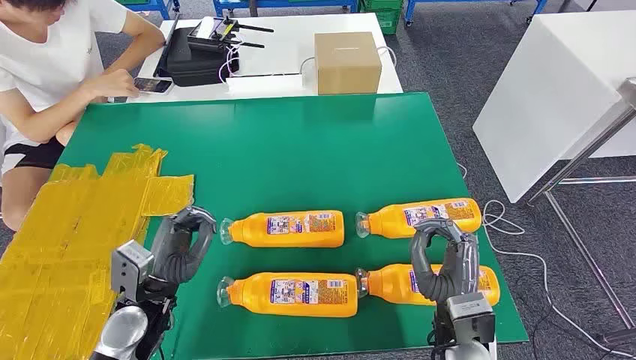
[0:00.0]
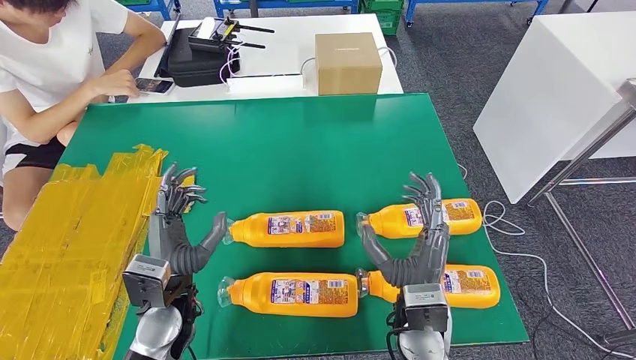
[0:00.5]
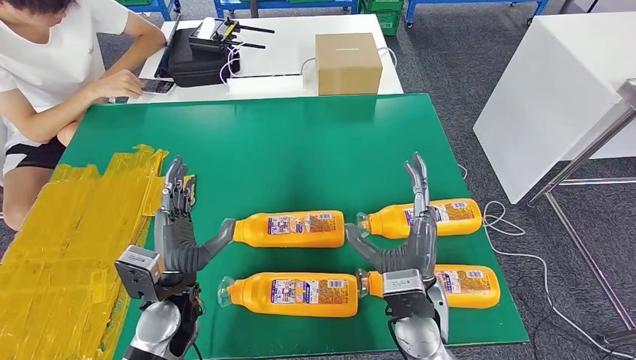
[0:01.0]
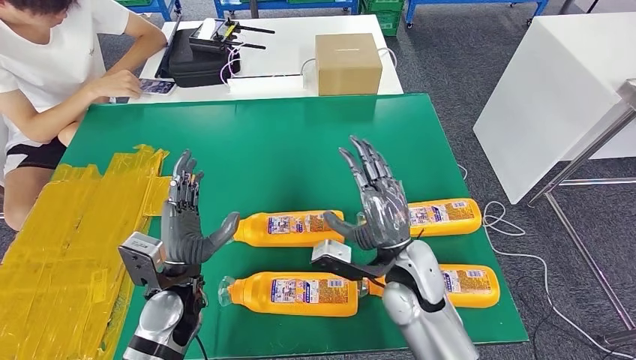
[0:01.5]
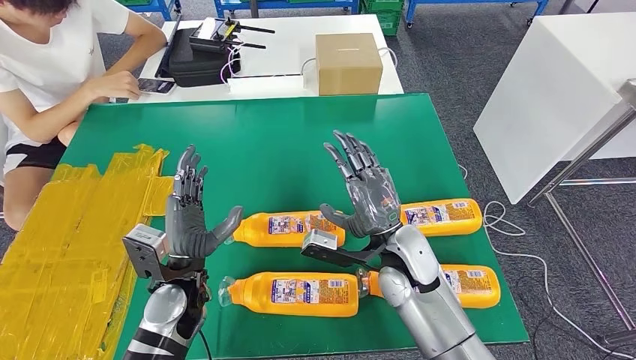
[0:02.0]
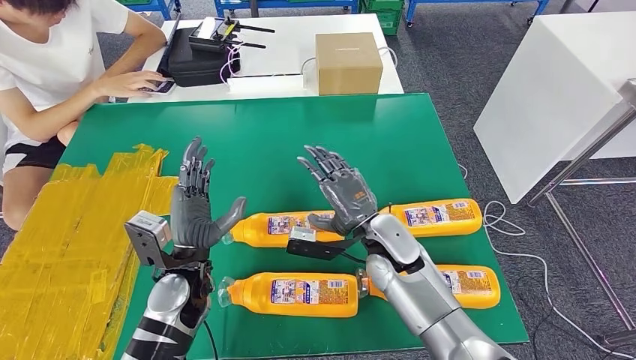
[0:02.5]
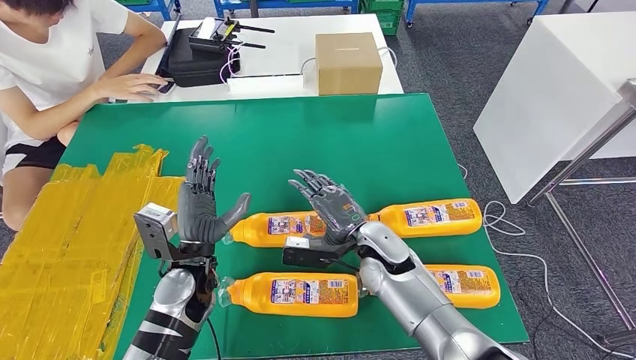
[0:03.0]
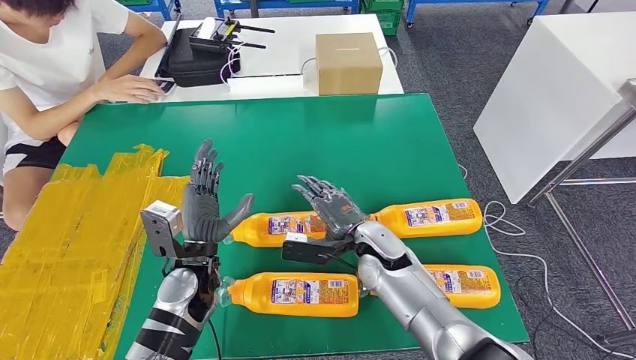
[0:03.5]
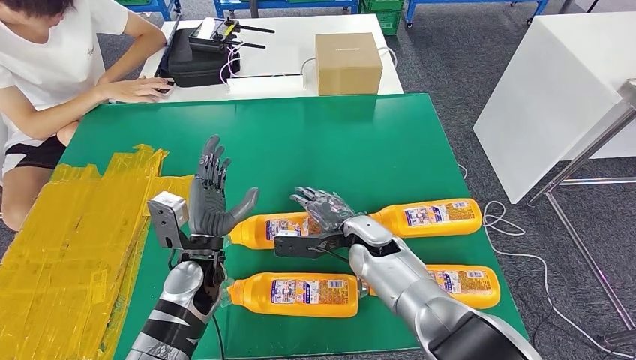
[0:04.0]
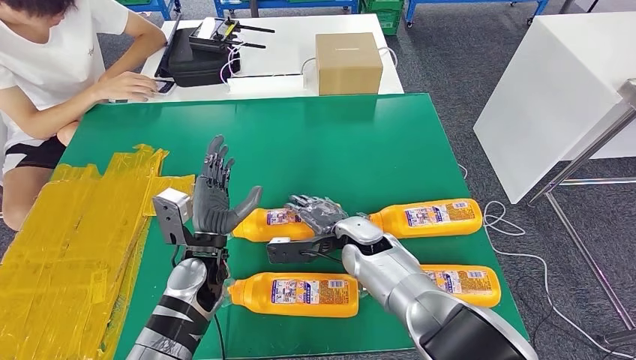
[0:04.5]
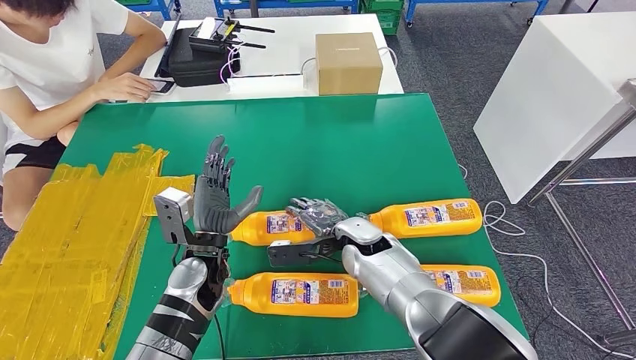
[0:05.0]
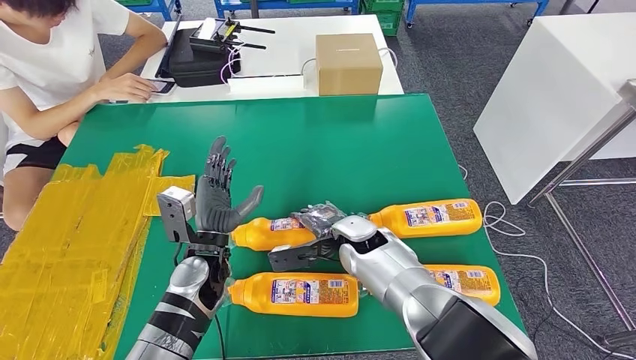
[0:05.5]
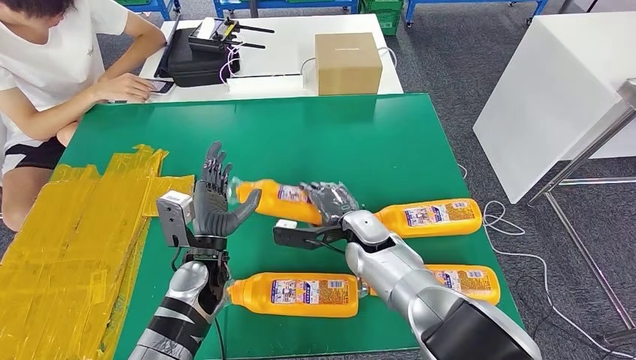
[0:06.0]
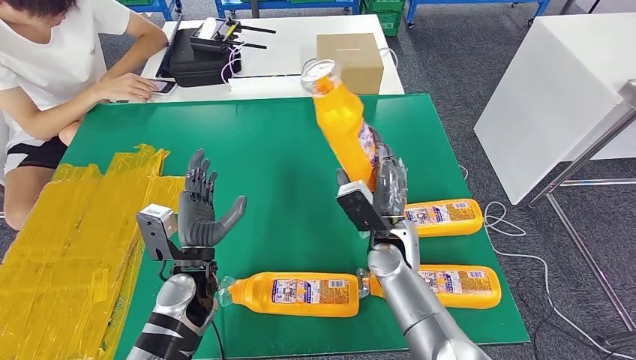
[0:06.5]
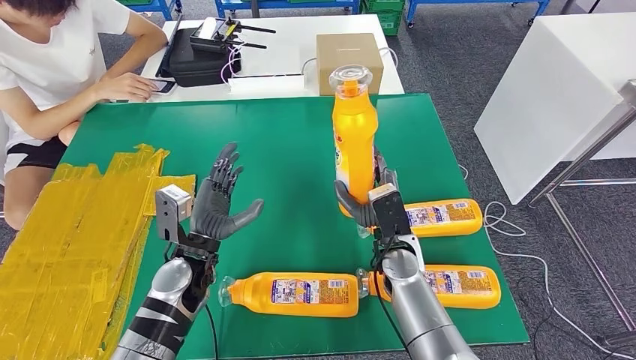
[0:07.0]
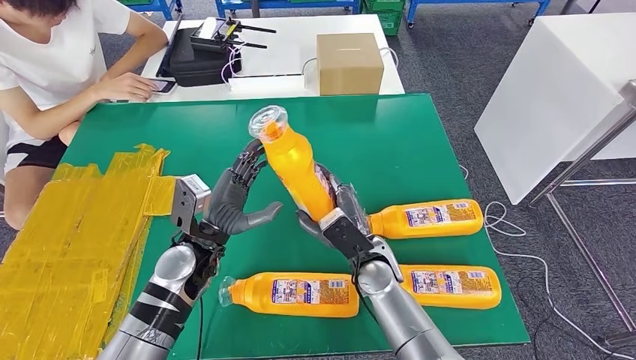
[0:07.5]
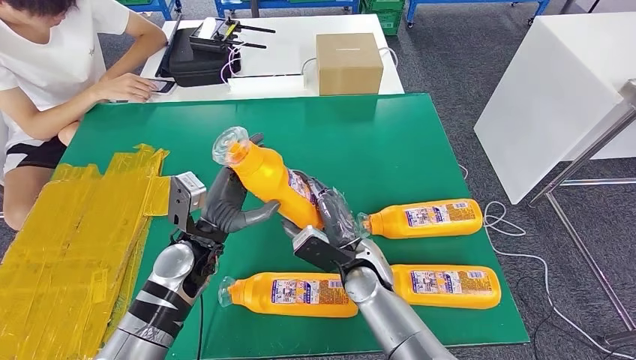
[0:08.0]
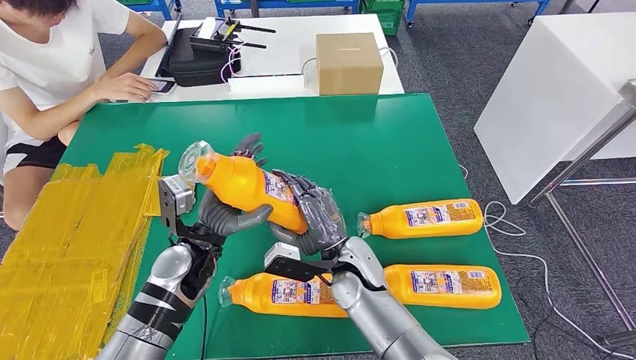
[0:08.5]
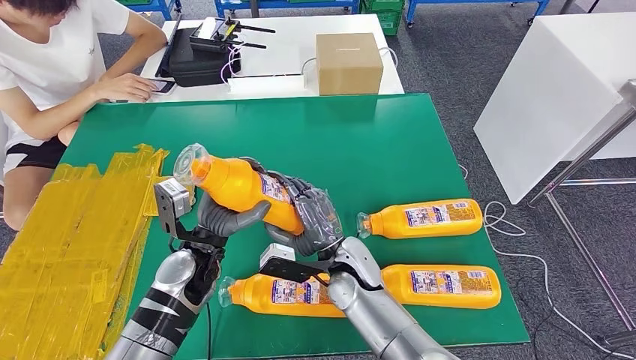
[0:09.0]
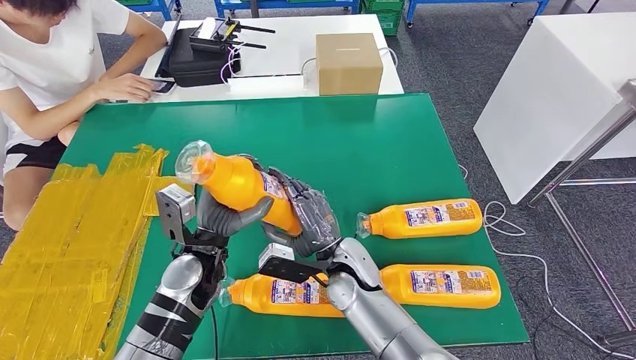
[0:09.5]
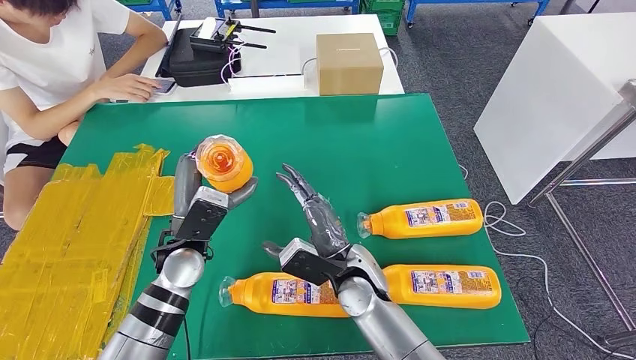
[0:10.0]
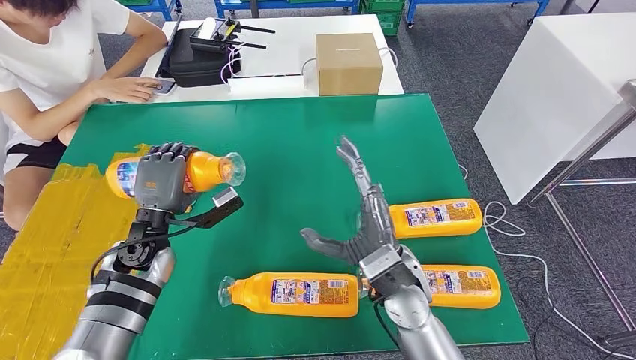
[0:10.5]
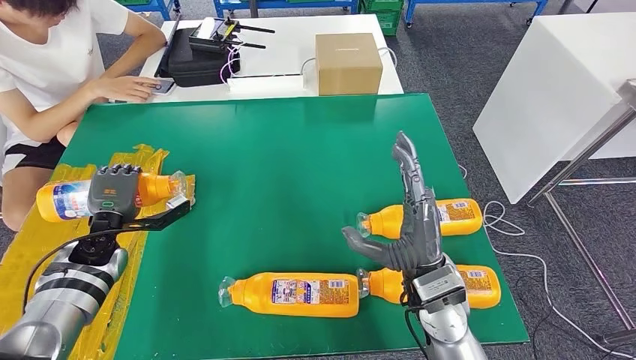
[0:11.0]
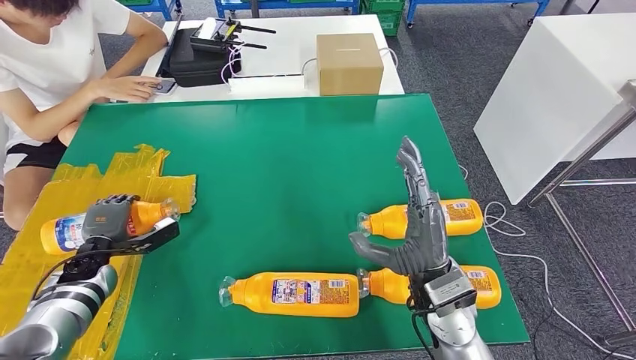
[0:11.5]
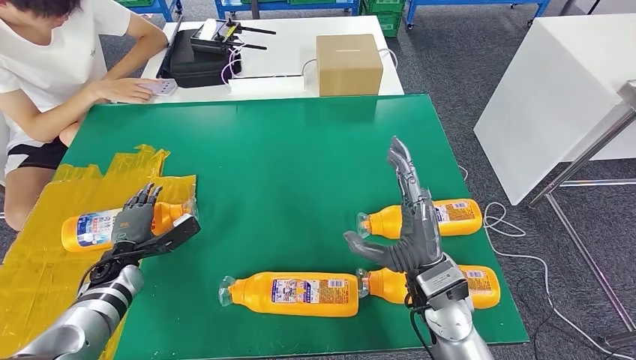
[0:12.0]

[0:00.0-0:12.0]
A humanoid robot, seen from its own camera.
Step, 0:00.0 to 0:07.0: Take the fast-moving consumer goods bottle from the table.
0:02.0 to 0:04.0: The right hand shifts roughly 10 cm downward and forward.
0:06.0 to 0:08.0: The right hand shifts approximately 5 cm backward.
0:10.0 to 0:12.0: The left hand goes roughly 20 cm to the left and downward, while the right hand heads to the right and upward, covering about 10 cm.

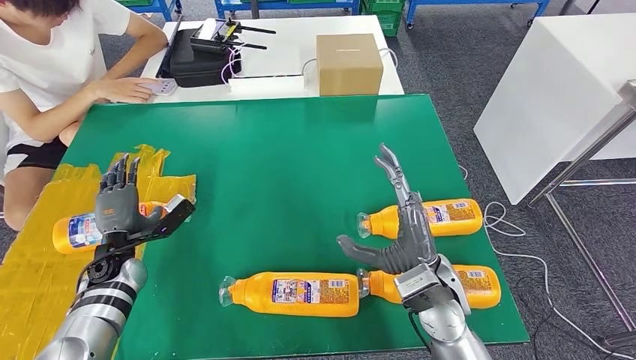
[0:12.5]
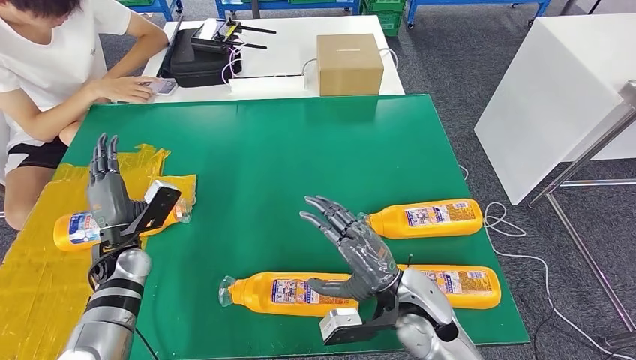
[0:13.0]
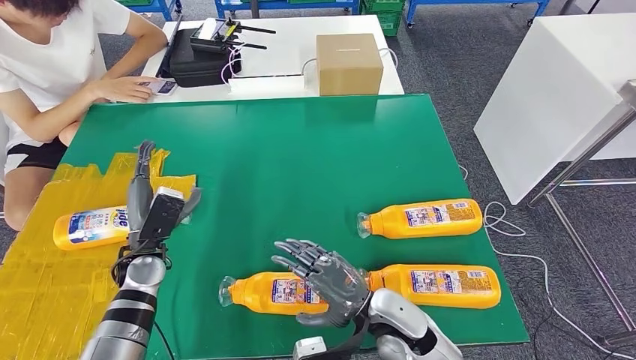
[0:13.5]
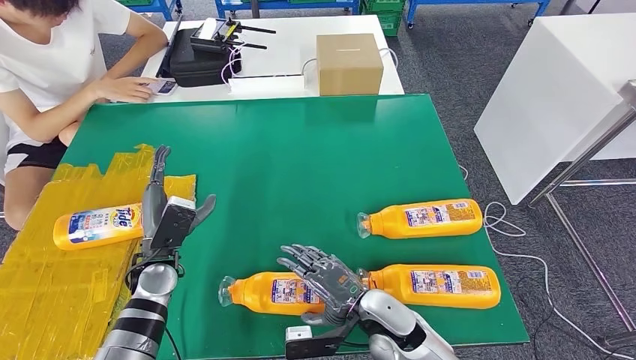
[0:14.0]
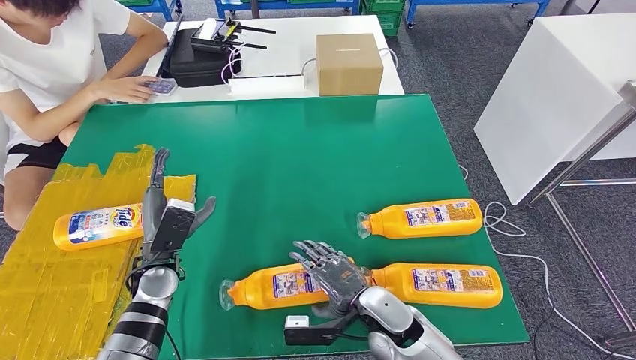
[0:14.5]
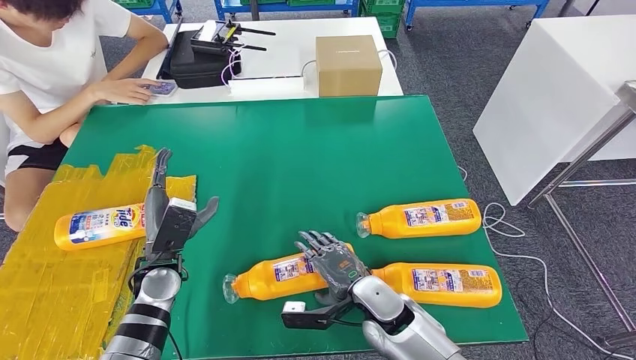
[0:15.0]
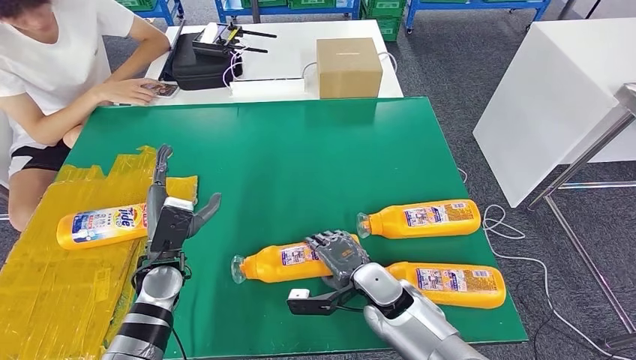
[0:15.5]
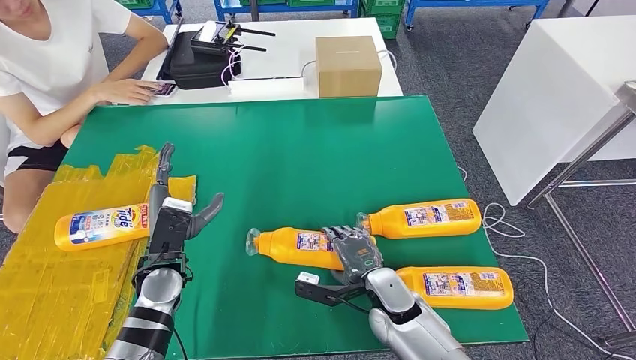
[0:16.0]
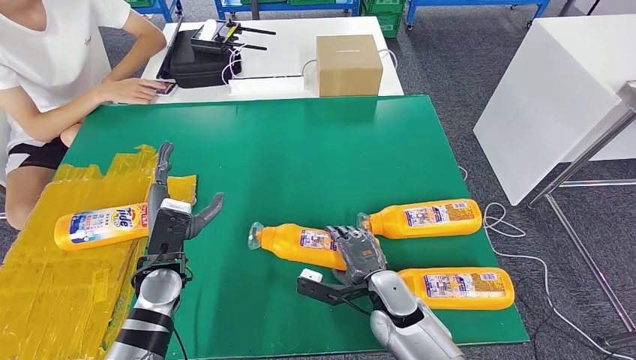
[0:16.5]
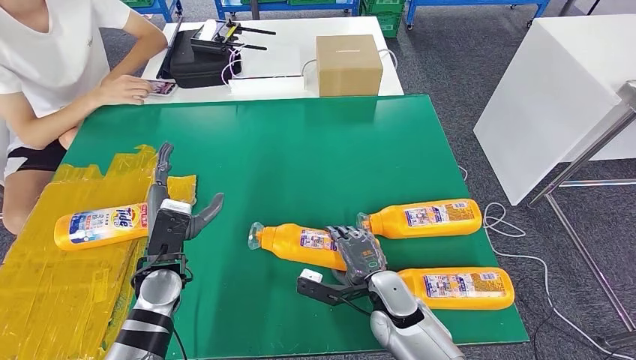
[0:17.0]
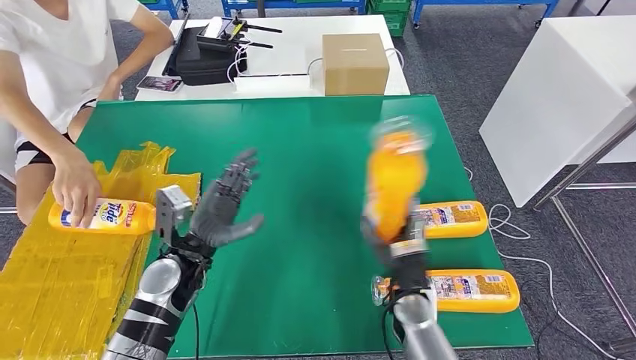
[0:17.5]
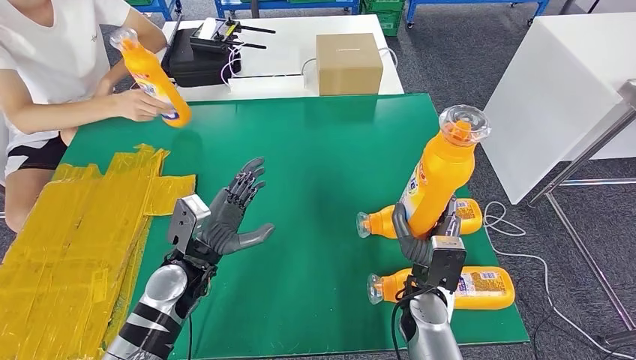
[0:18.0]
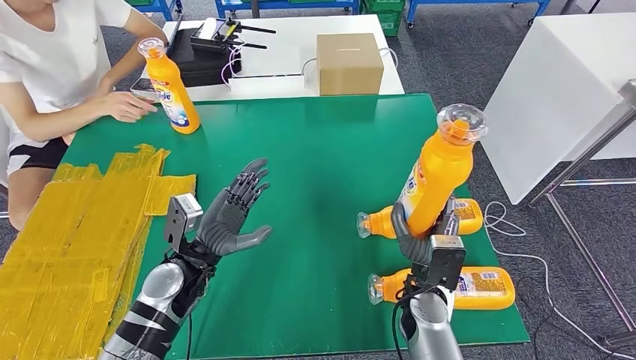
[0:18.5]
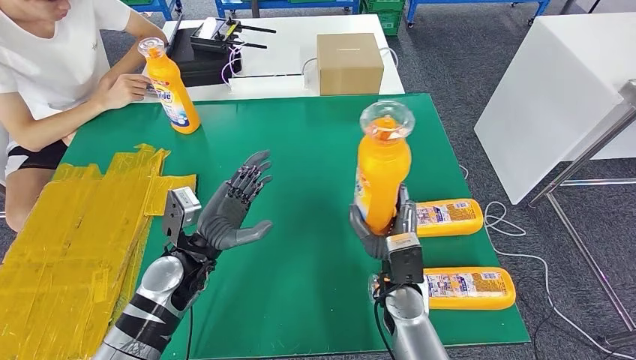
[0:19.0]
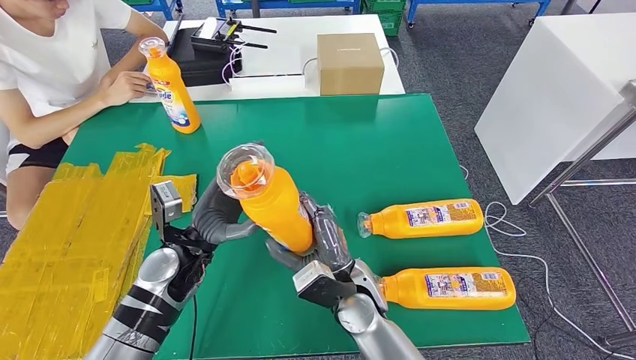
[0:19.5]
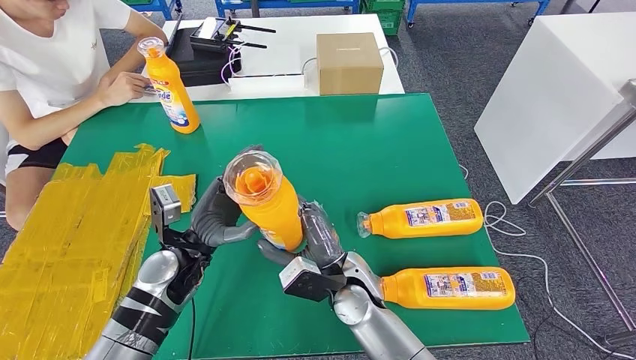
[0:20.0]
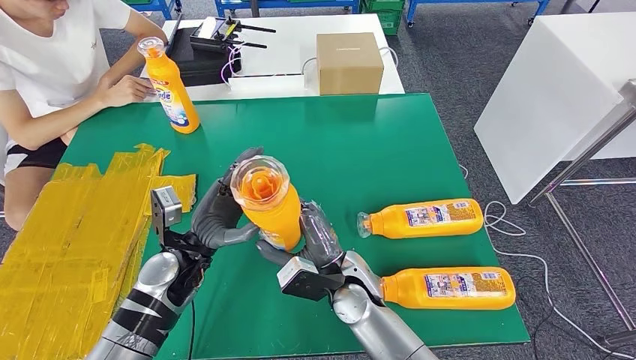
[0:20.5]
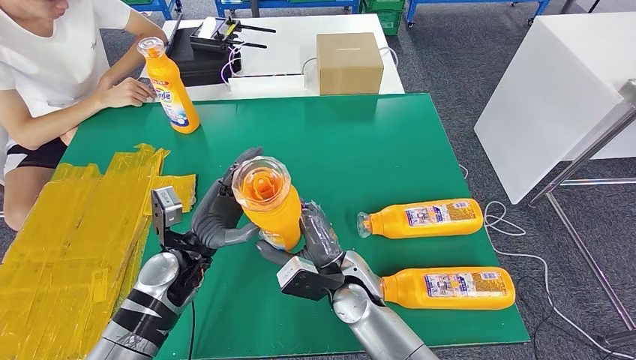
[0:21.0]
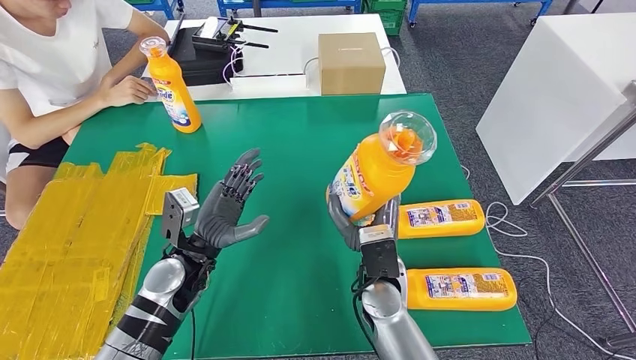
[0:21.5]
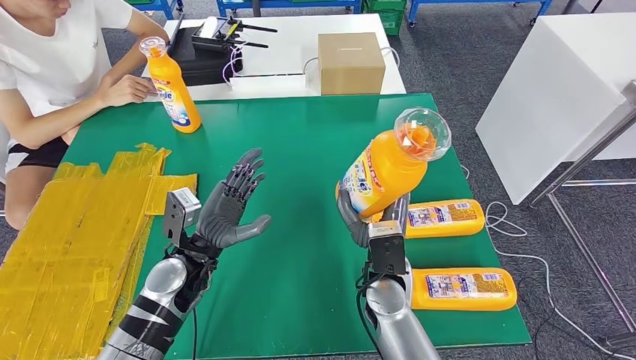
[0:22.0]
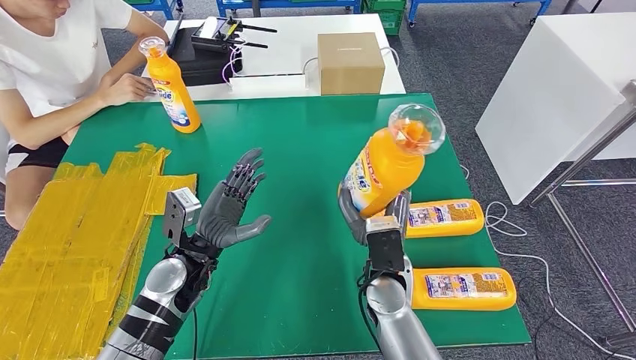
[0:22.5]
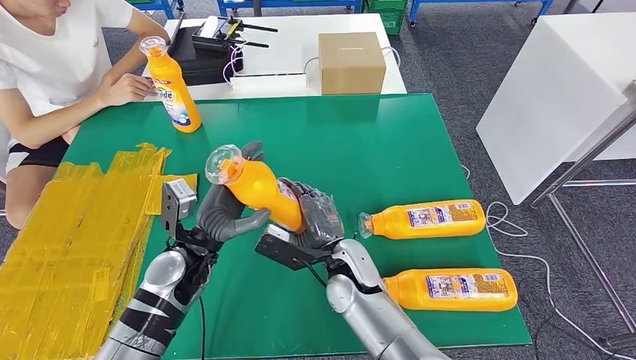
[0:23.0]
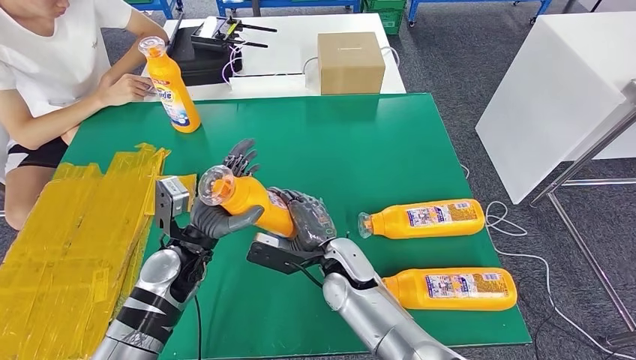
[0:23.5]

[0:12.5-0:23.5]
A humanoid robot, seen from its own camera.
Step, 0:12.5 to 0:19.0: Pick up the fast-moving consumer goods bottle from the table.
0:12.5 to 0:14.5: The left hand moves to the right, about 10 cm, while the right hand moves downward and to the left, about 10 cm.
0:20.0 to 0:21.5: The right hand goes some 5 cm to the right.
0:21.5 to 0:23.5: The right hand moves to the left, some 5 cm.
